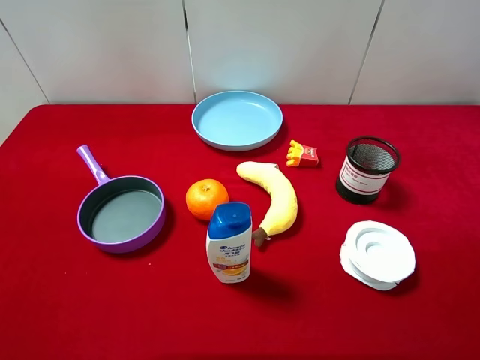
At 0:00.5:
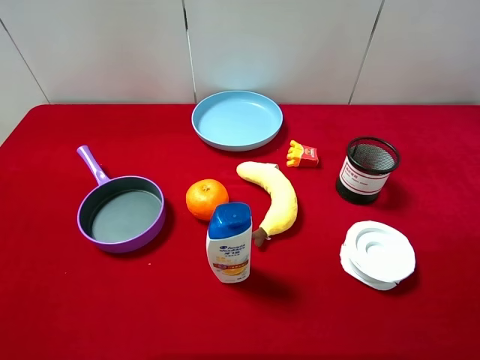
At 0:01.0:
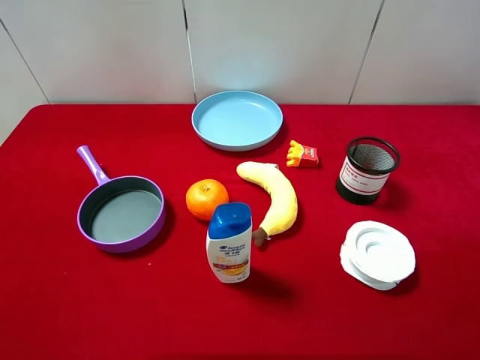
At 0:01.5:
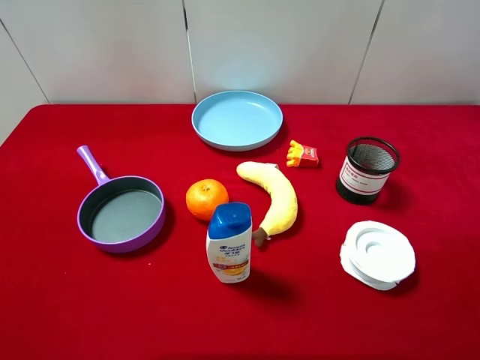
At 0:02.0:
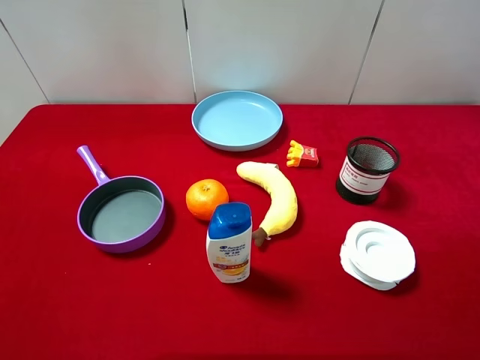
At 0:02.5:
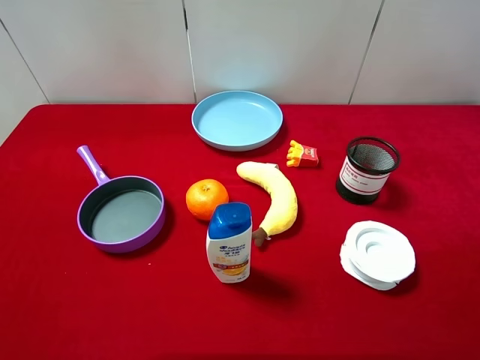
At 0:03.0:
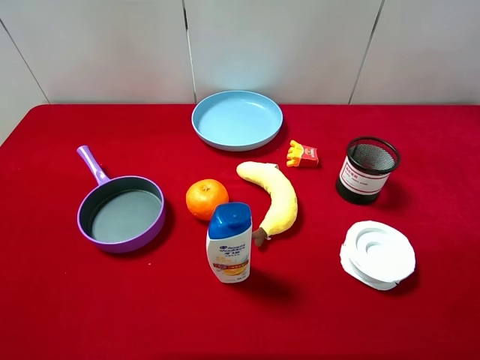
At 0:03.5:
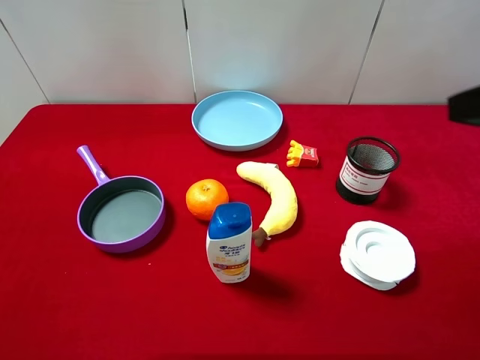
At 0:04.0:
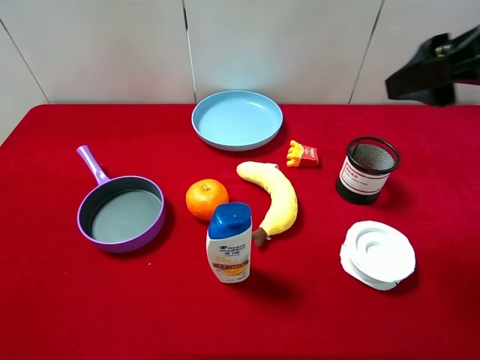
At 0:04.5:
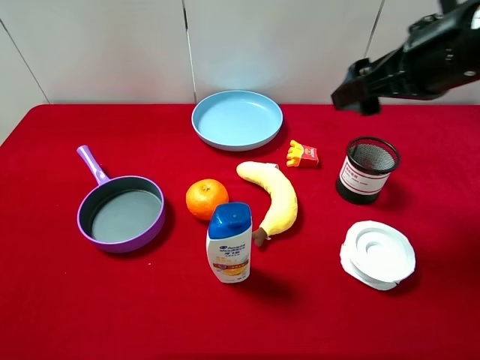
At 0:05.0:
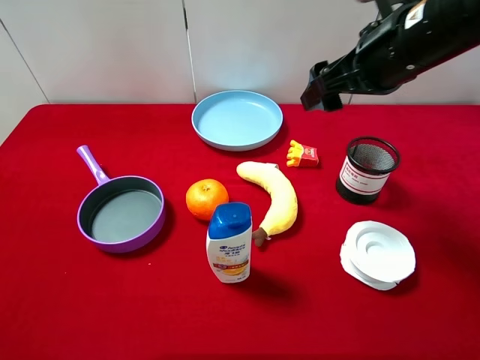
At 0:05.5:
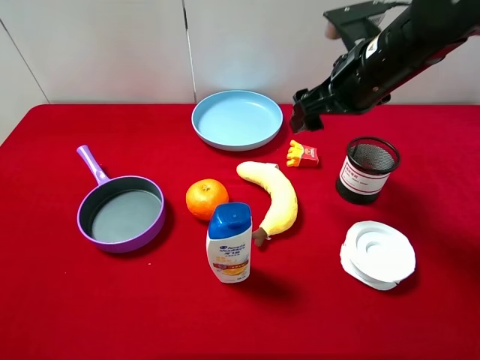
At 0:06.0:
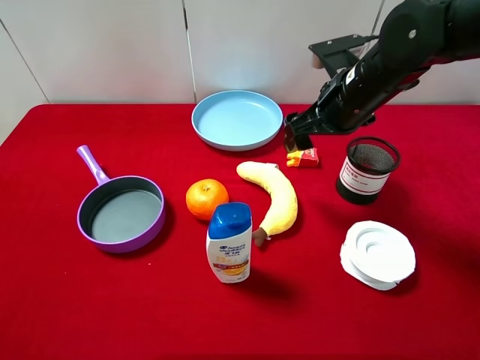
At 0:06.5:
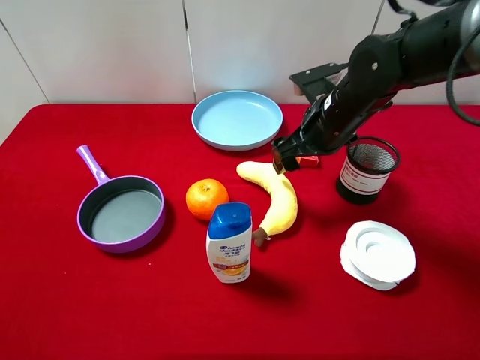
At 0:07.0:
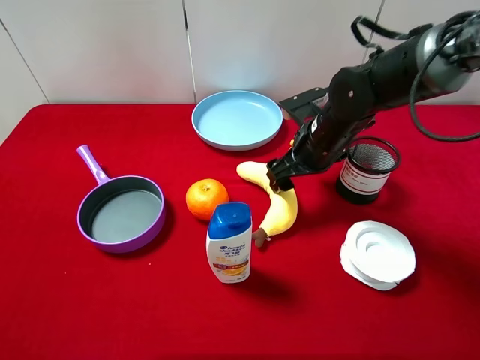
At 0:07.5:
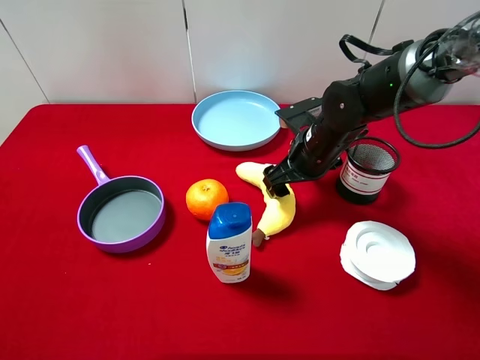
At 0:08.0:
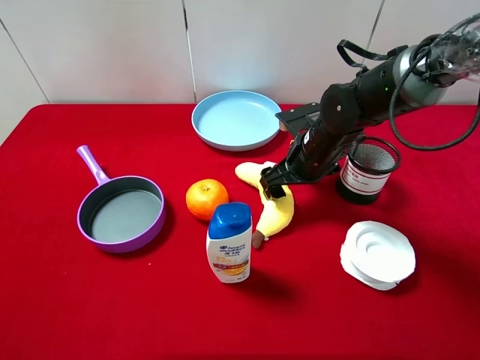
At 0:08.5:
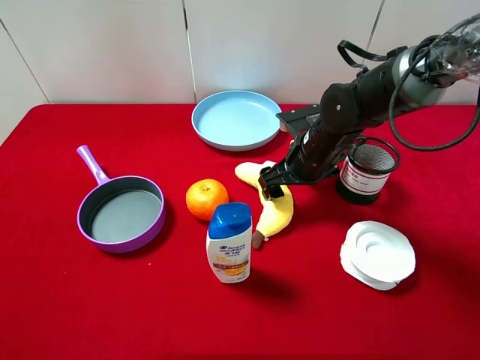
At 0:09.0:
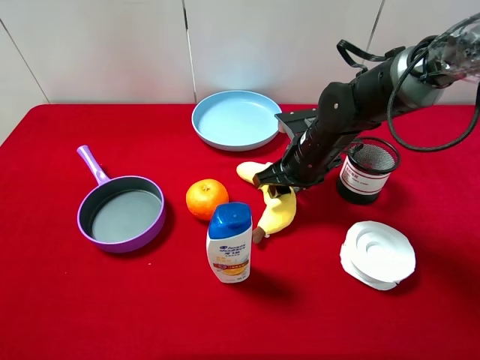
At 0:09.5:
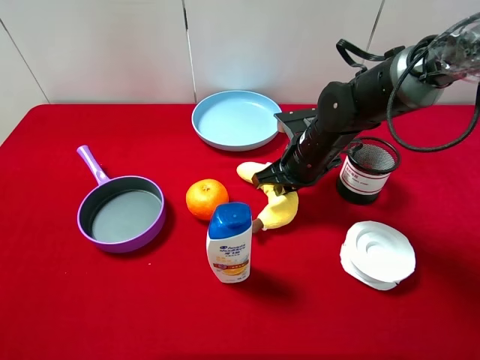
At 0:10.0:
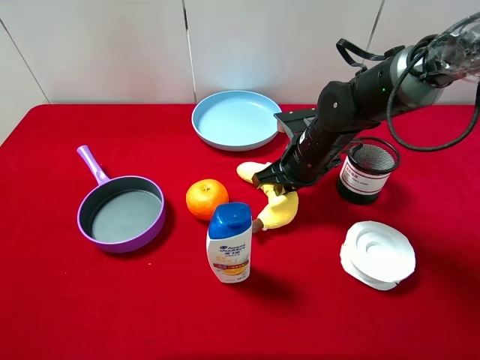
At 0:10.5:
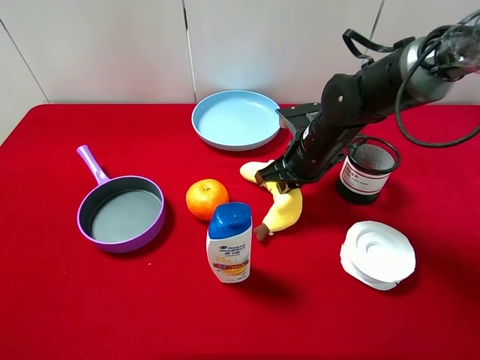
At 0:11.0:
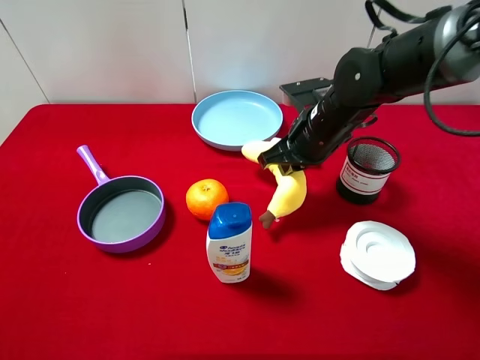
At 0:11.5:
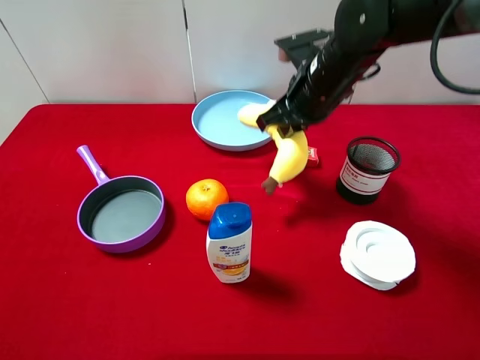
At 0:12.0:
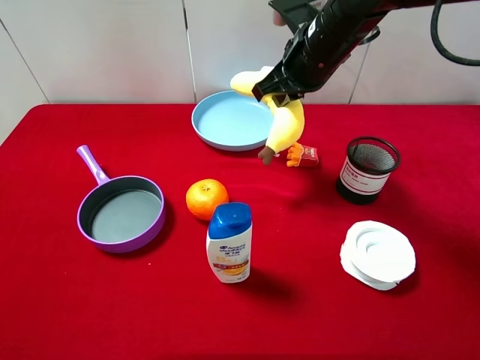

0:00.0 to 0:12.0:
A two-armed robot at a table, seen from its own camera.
Task of the whole recording: pick up an item with a gripper and place it in a random container on the desktop.
0:00.0 to 0:02.0: Both grippers stay put.
0:02.0 to 0:04.0: The right gripper moves forward and to the left, some 20 cm.
0:04.0 to 0:06.0: The right gripper travels downward, forward and to the left by roughly 20 cm.
0:06.0 to 0:08.0: The right gripper shifts about 10 cm downward.
0:08.0 to 0:10.0: The right gripper closes.
0:10.0 to 0:12.0: The right gripper heads upward, covering some 15 cm.

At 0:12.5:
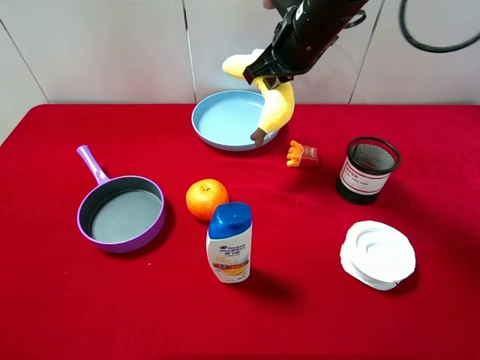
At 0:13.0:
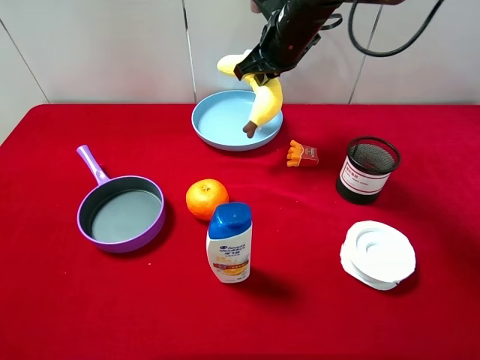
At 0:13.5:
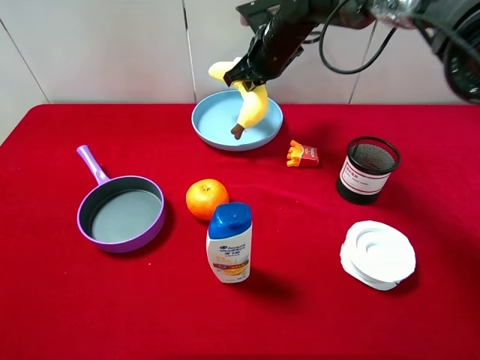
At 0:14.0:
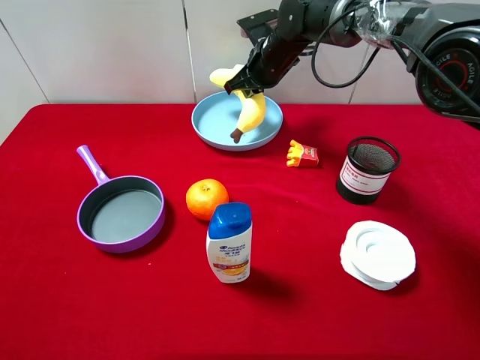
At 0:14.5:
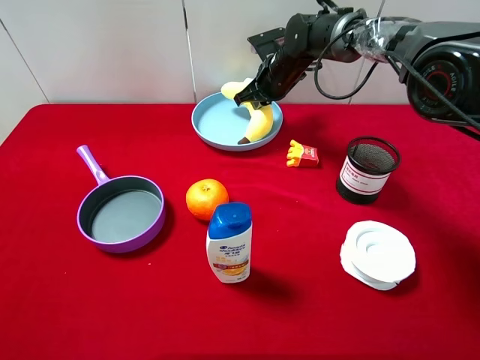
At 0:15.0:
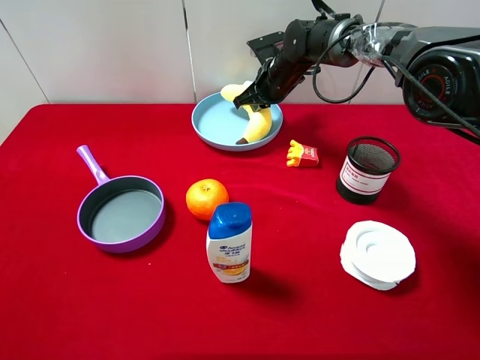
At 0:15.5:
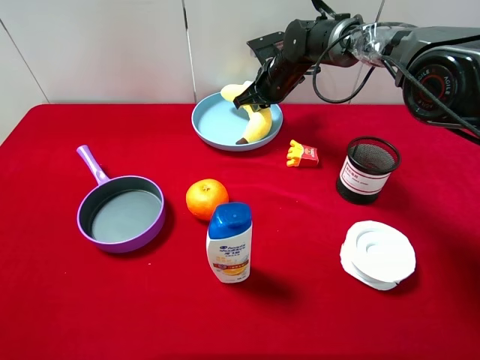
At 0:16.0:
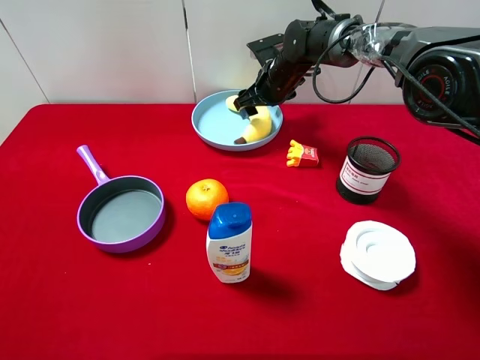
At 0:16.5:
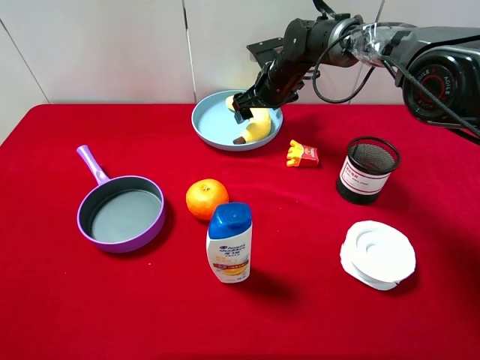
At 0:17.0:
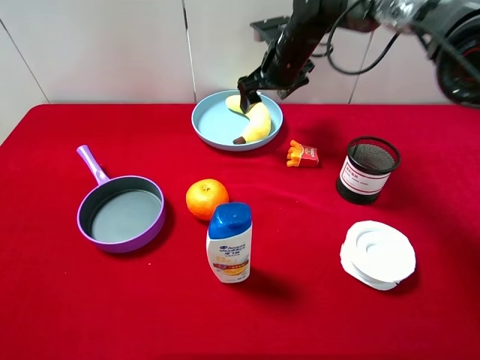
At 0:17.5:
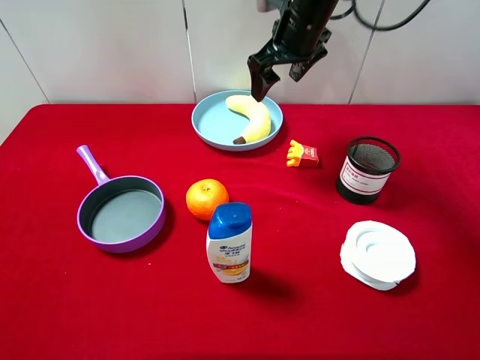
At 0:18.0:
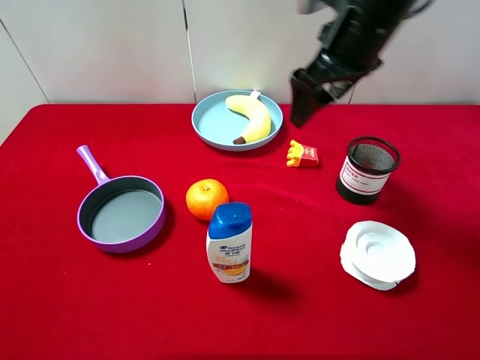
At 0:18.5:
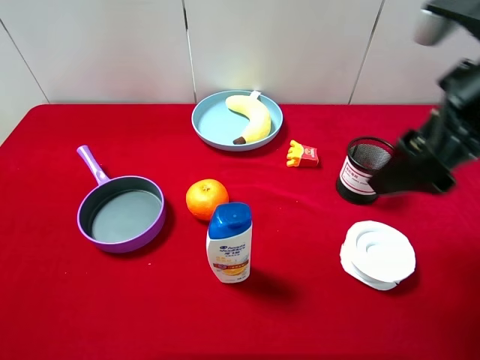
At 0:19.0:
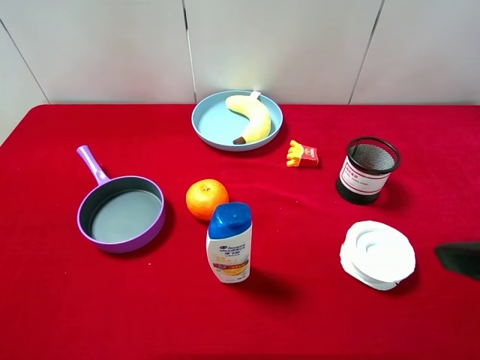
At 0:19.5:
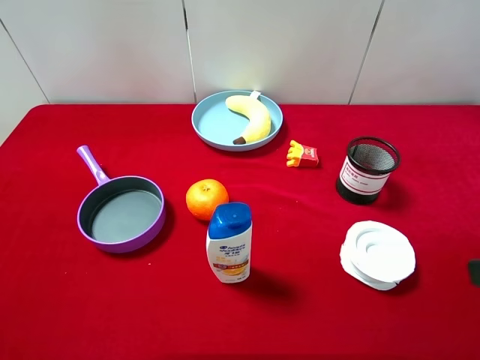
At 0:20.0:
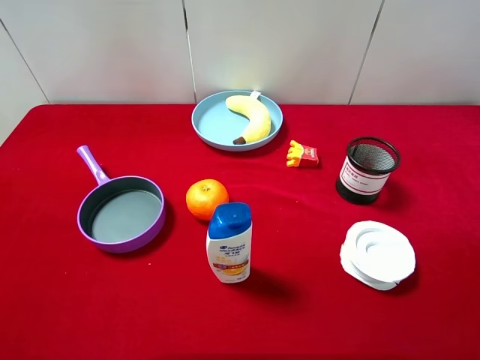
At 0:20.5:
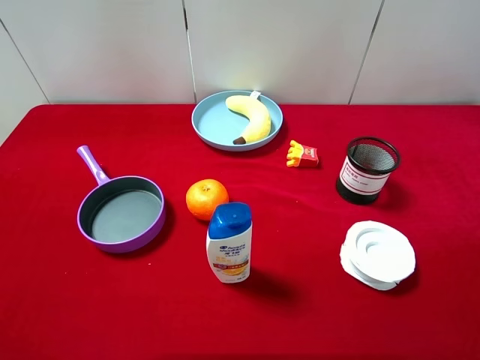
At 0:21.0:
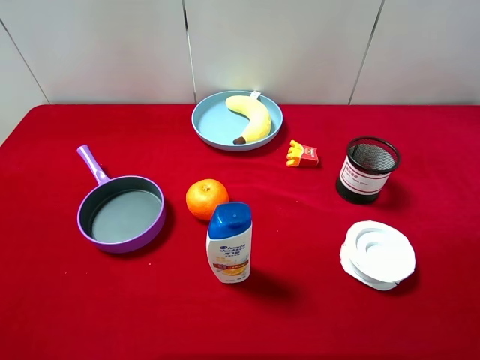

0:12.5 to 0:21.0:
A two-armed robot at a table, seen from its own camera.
Task of the whole recording: pick up an item with a gripper and place it in a random container on the desktop.
0:12.5 to 0:14.5: The right gripper is displaced downward and forward by about 15 cm.
0:14.5 to 0:16.5: The right gripper opens up.
0:16.5 to 0:19.0: The right gripper goes approximately 50 cm backward, to the right and upward.
